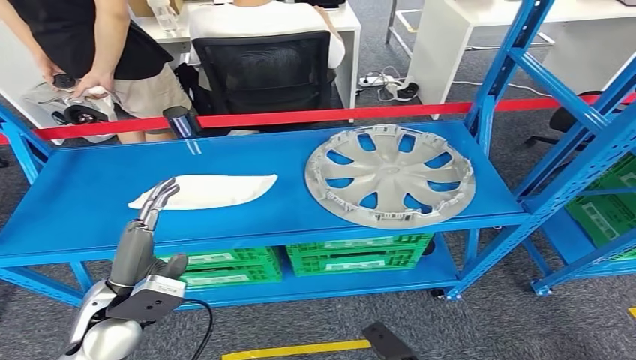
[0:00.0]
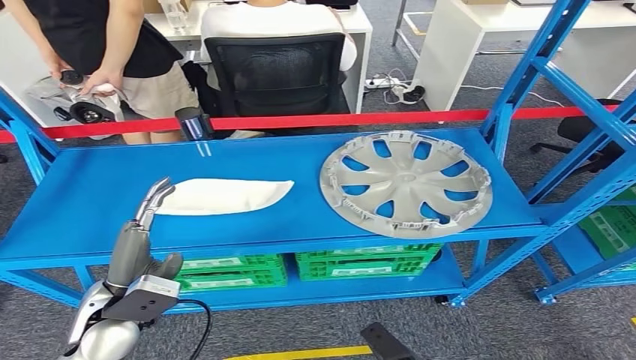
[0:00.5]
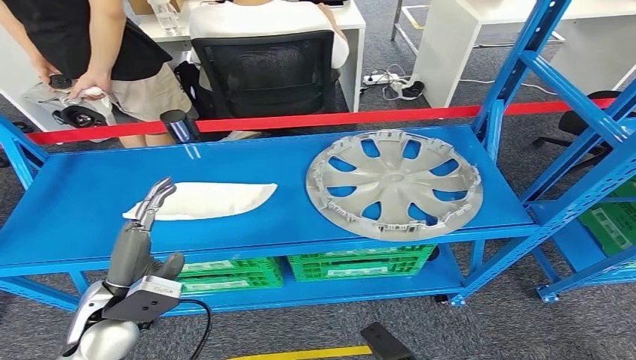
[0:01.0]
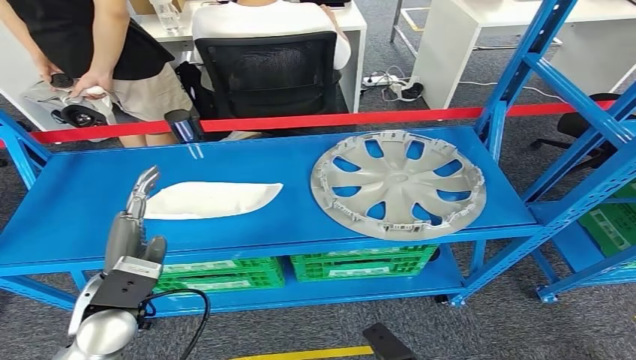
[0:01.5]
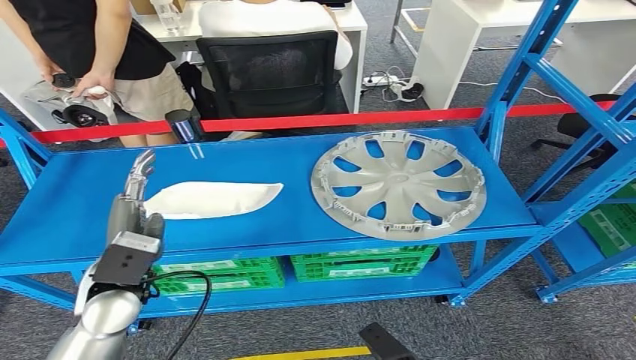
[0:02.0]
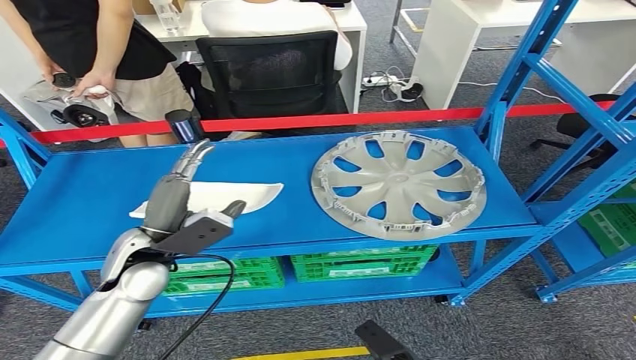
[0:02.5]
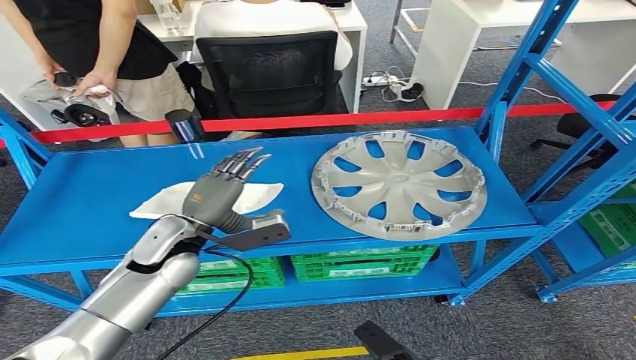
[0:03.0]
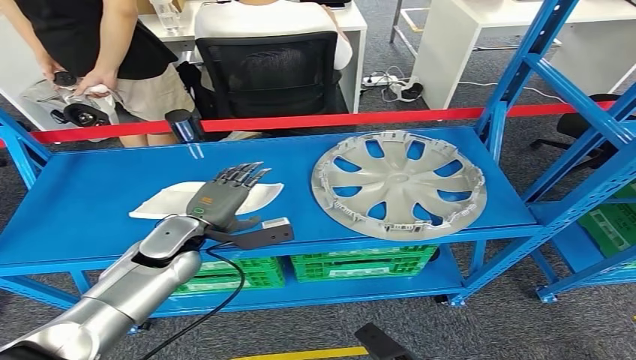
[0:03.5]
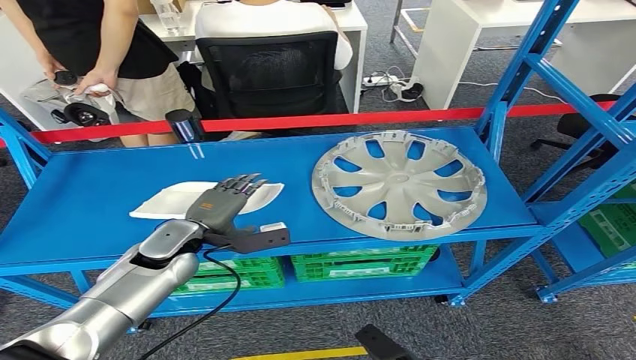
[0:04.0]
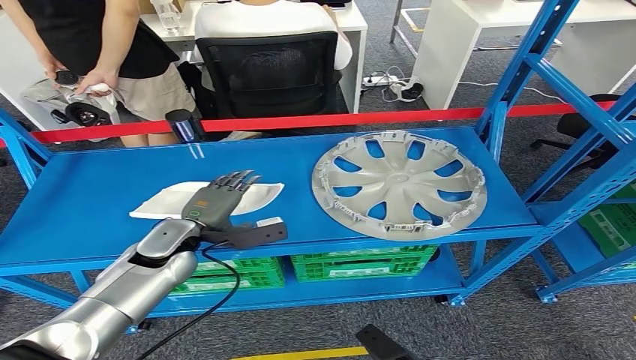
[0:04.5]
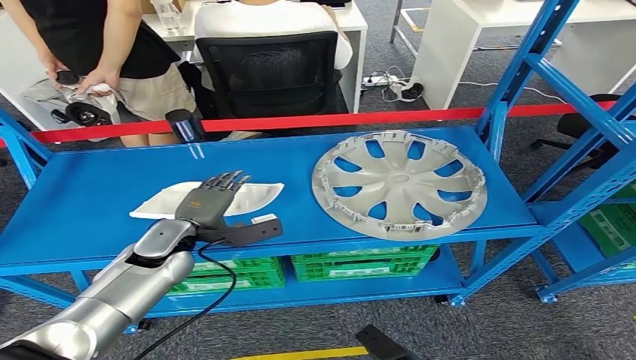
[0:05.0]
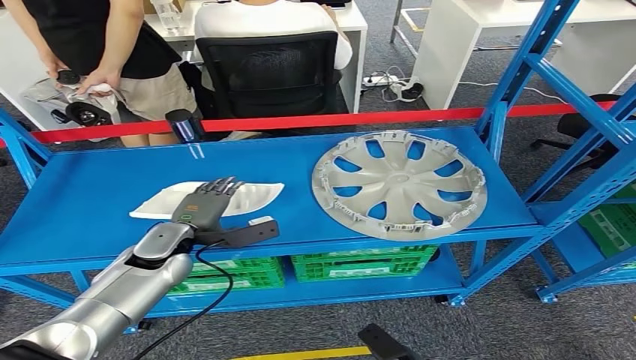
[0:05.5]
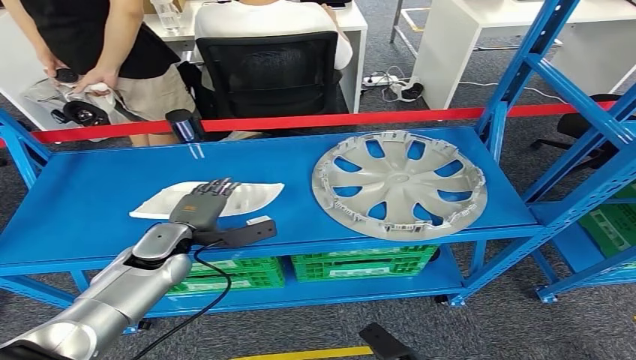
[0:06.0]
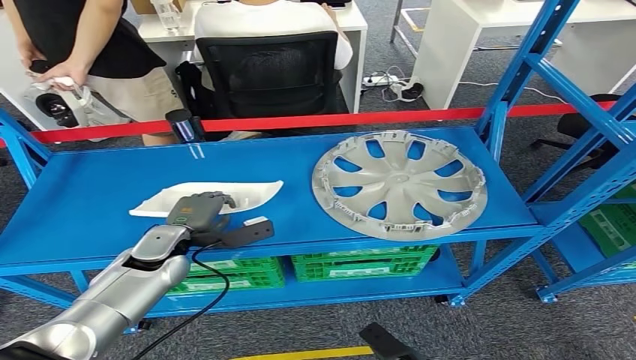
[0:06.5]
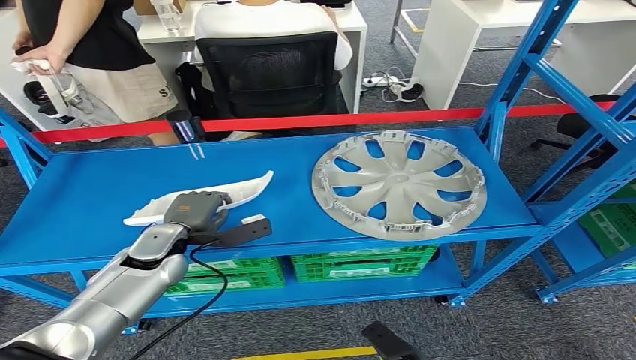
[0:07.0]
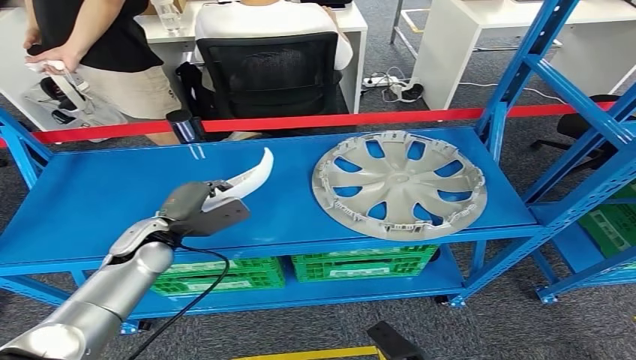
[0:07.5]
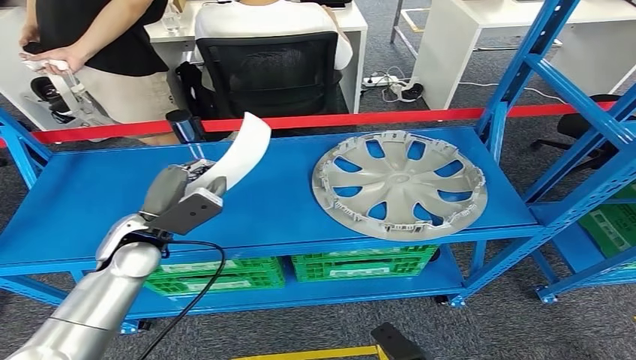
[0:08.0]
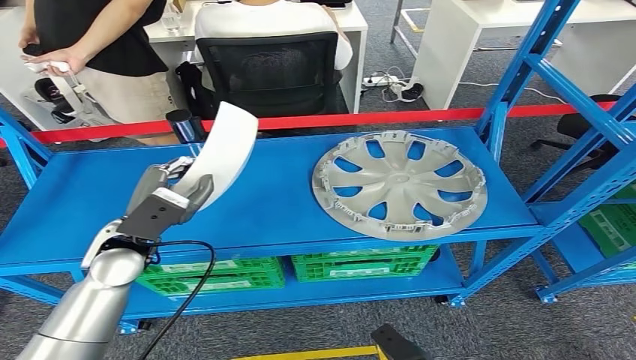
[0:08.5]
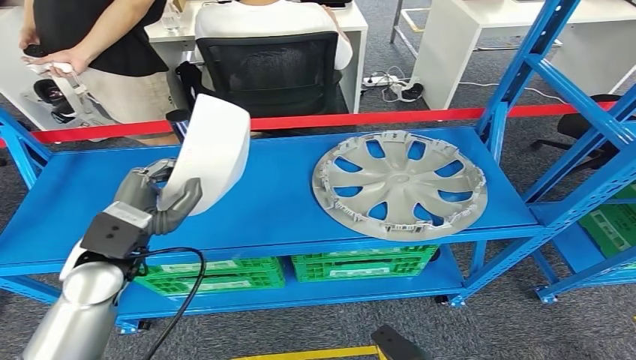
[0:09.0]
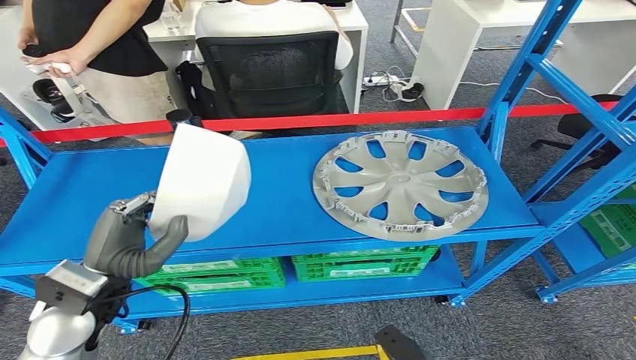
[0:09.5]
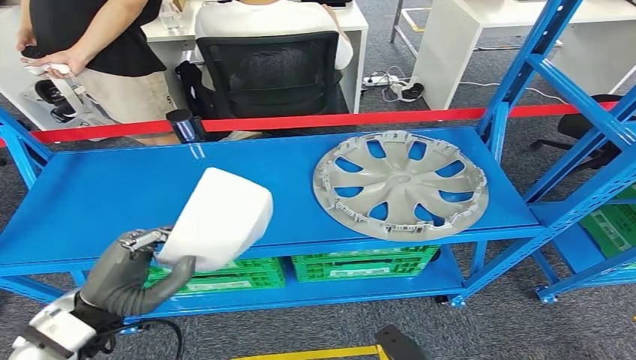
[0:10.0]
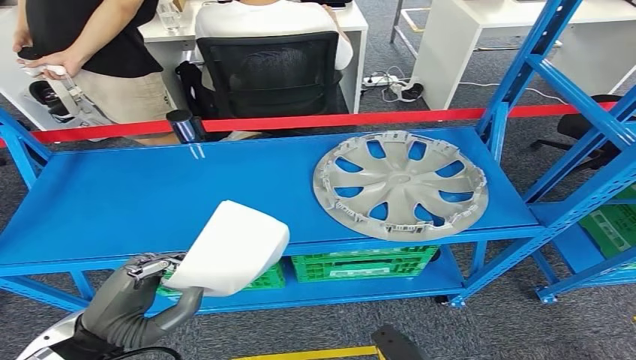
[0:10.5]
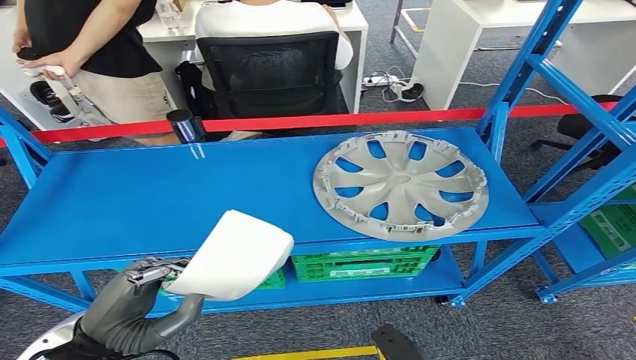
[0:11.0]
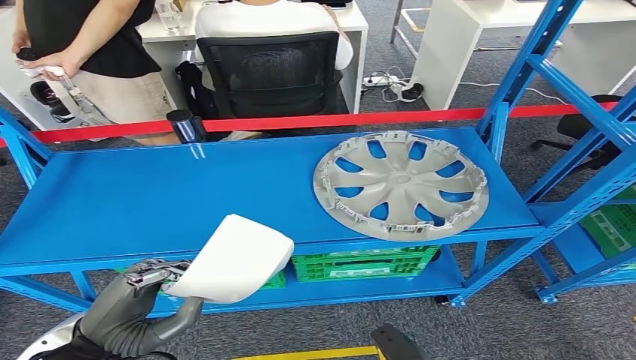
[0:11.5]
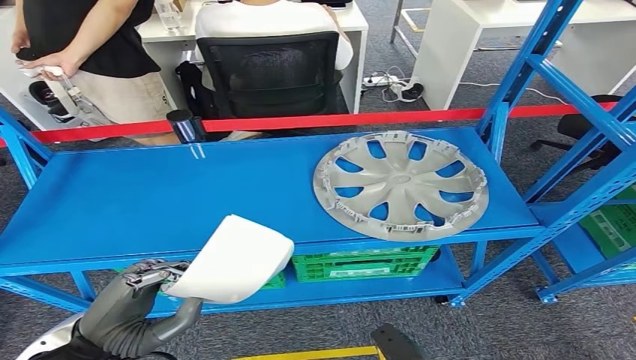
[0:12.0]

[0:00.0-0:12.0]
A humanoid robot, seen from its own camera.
Step, 0:00.0 to 0:08.5: Take small components from the rack.
0:02.0 to 0:04.0: The left hand travels forward by about 10 cm.
0:04.0 to 0:06.0: The hands stay close to where they were, moving slightly.
0:08.0 to 0:10.0: The left hand is displaced backward by approximately 15 cm.
0:10.0 to 0:12.0: The hands move only a little.

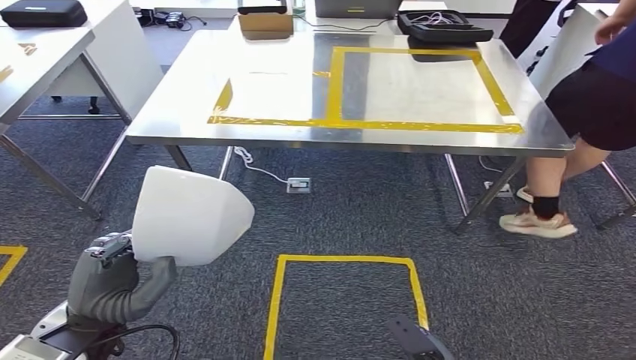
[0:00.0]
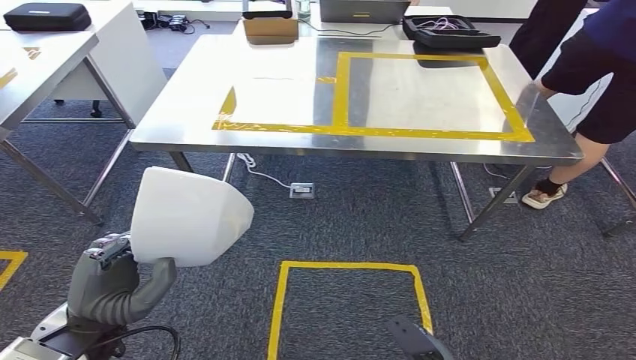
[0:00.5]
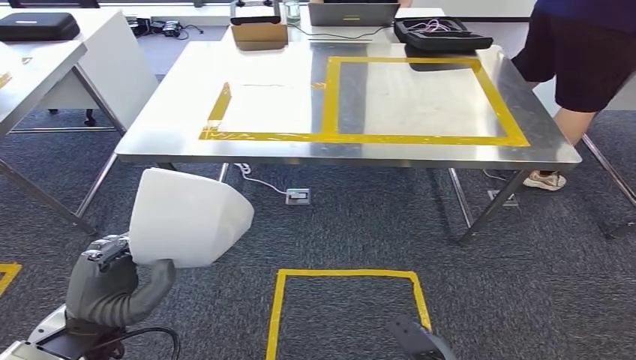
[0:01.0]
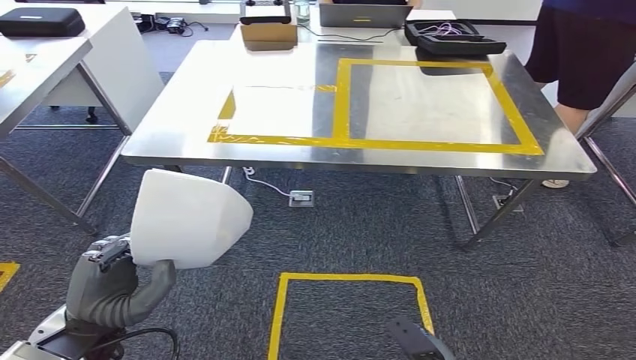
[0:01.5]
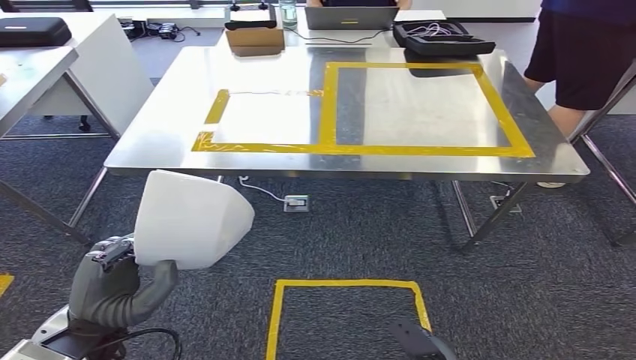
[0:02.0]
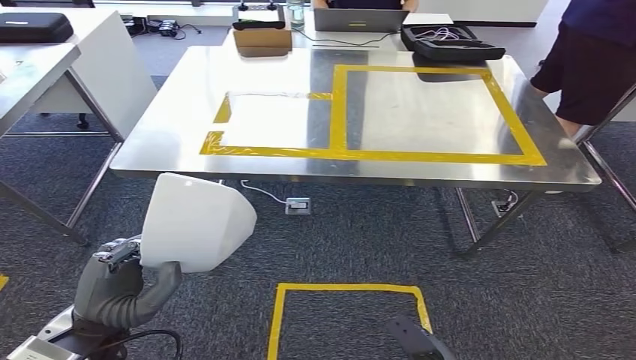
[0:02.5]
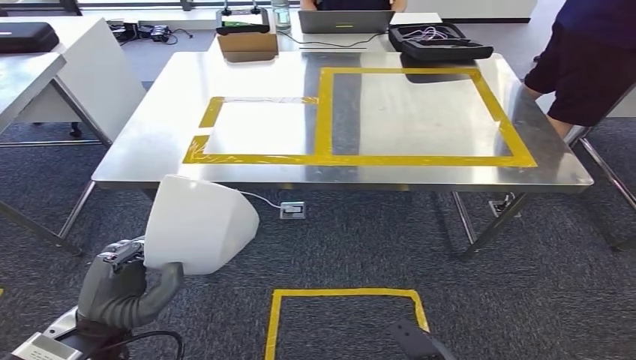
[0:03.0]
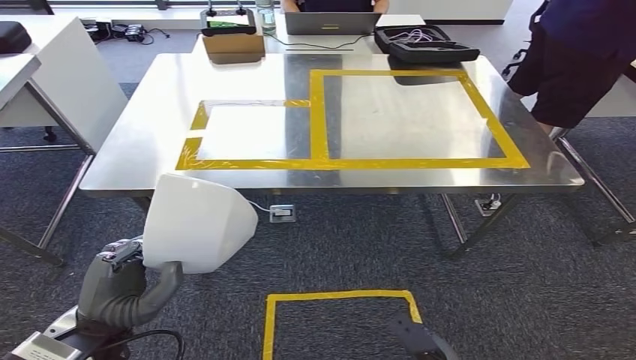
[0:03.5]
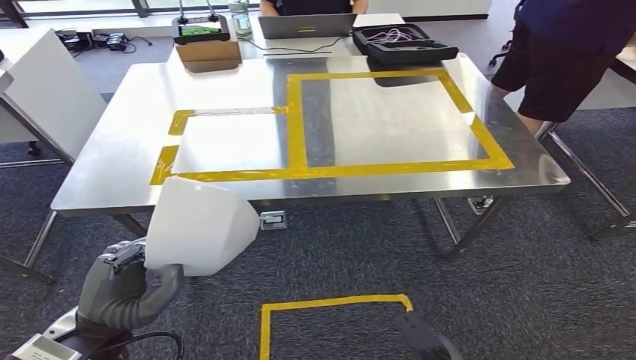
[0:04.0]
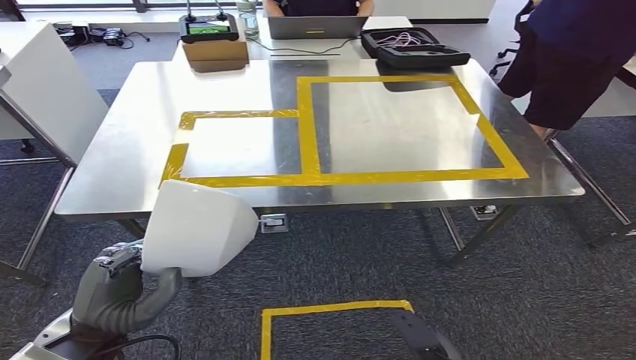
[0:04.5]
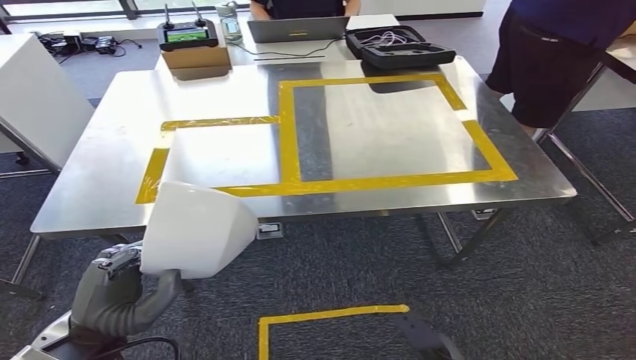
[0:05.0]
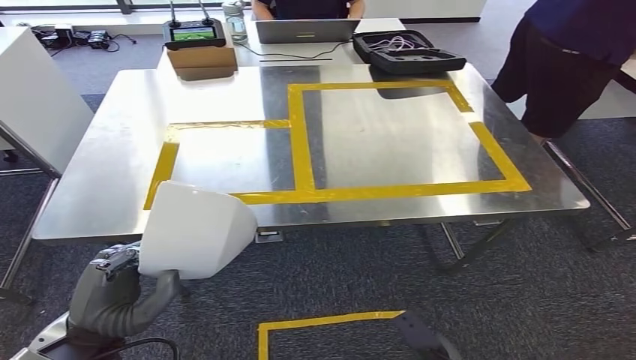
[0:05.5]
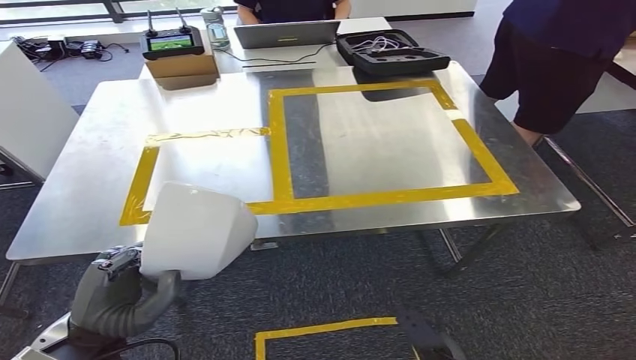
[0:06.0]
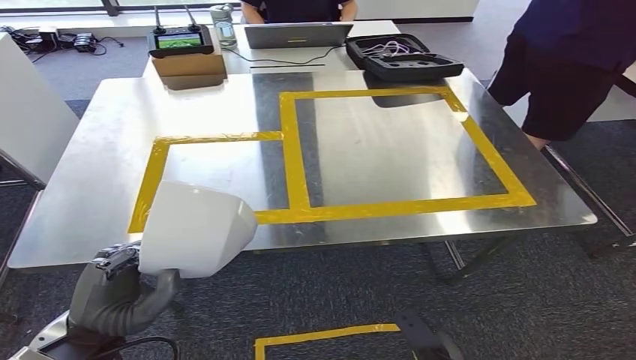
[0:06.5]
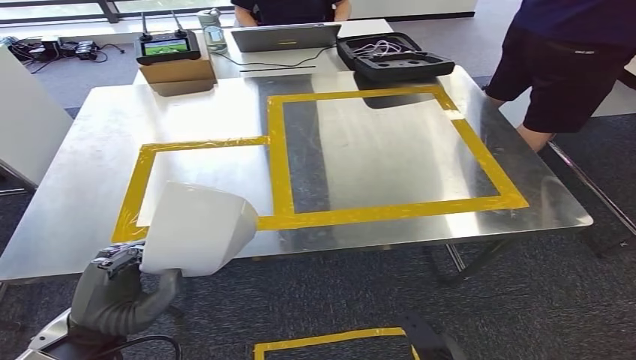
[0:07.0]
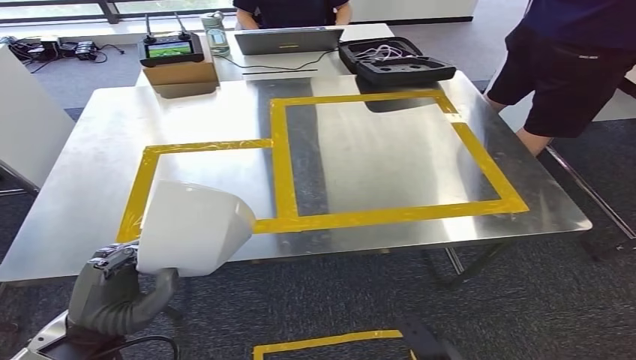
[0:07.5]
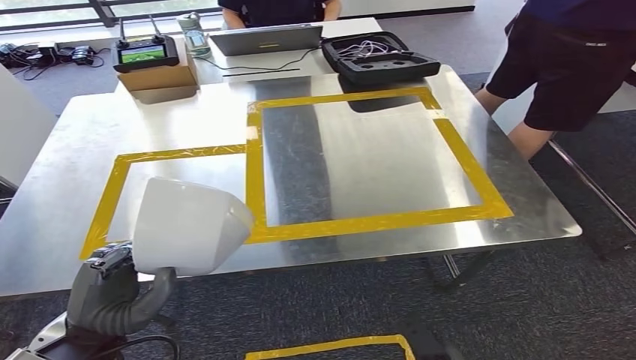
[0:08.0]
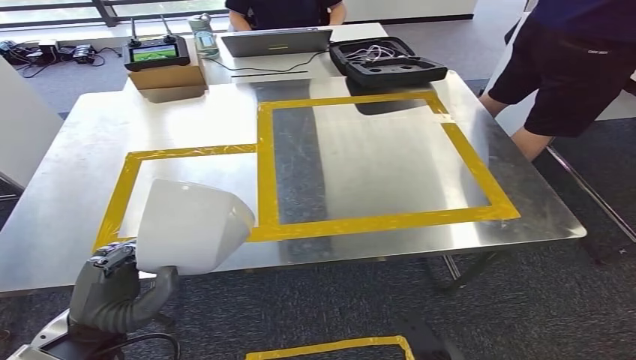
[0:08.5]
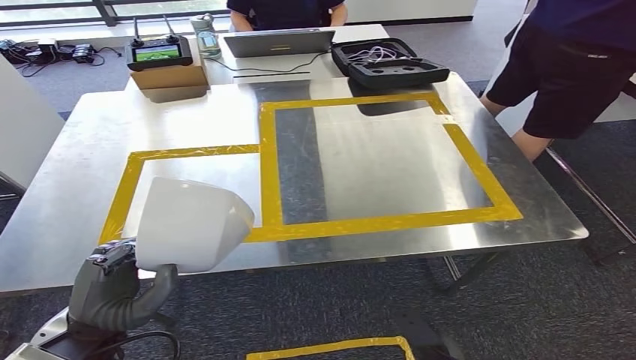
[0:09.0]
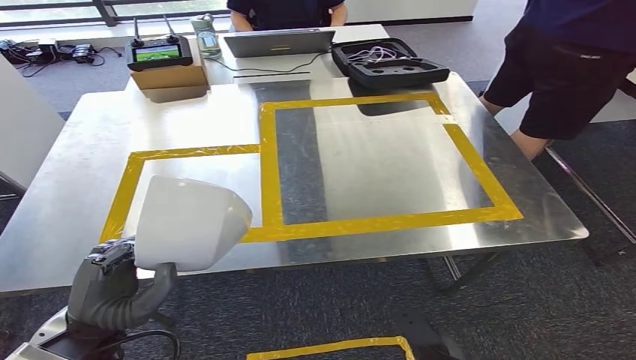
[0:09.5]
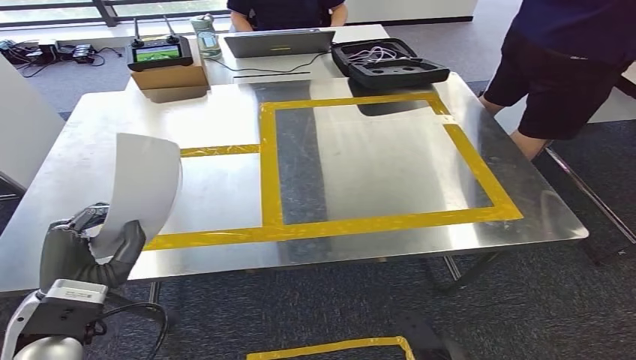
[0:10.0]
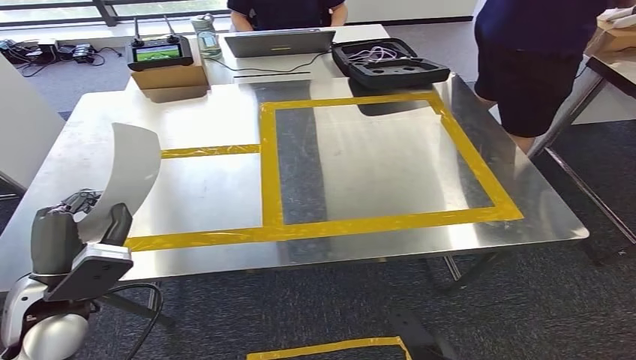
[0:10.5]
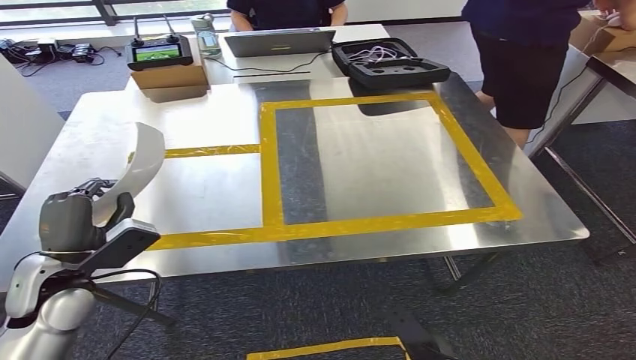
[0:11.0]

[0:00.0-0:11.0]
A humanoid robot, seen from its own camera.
Step, 0:00.0 to 0:08.5: Move the small parts to the workbench.
0:09.0 to 0:11.0: The left hand goes roughly 10 cm forward and to the left.
